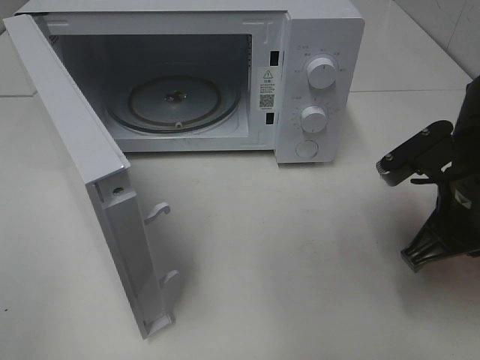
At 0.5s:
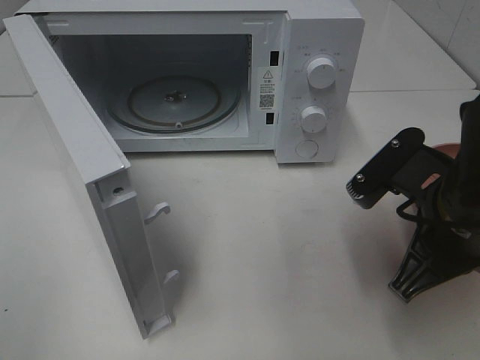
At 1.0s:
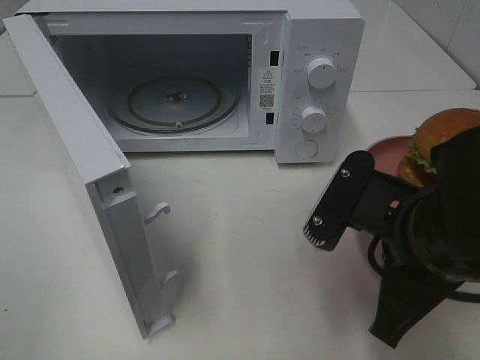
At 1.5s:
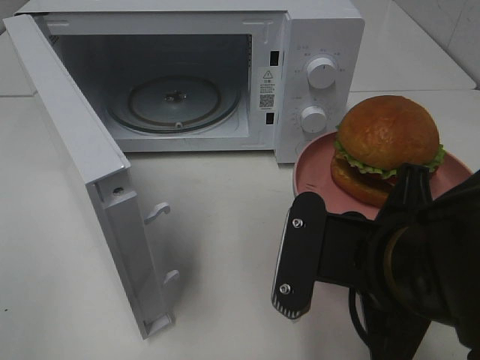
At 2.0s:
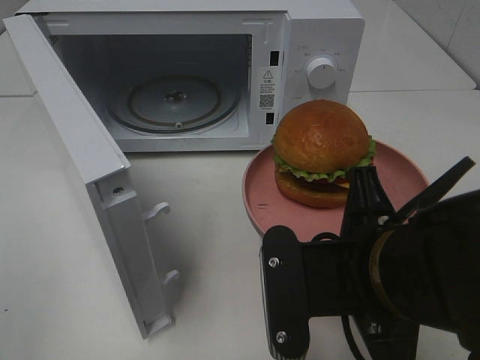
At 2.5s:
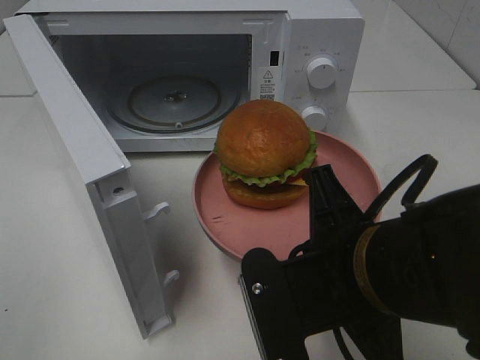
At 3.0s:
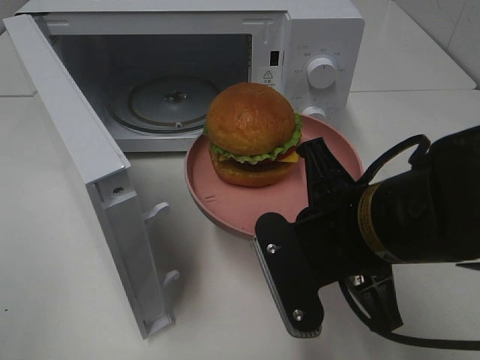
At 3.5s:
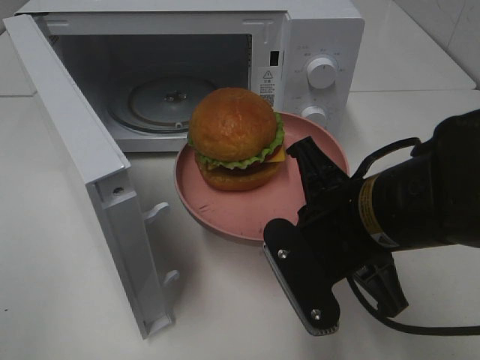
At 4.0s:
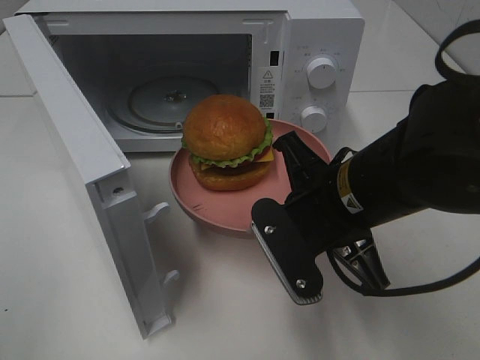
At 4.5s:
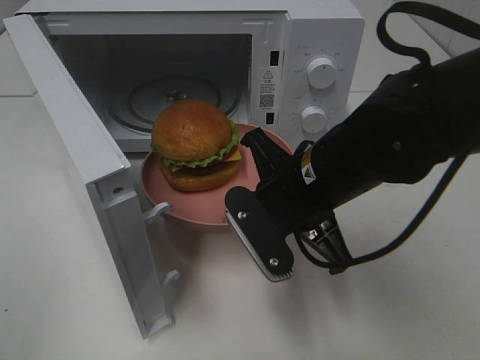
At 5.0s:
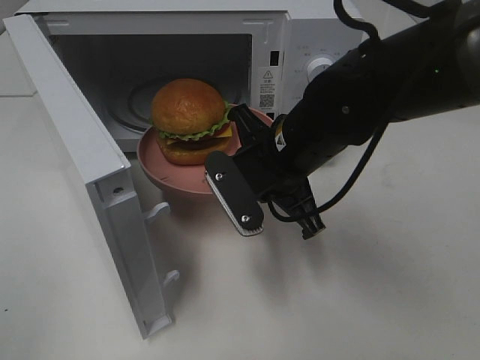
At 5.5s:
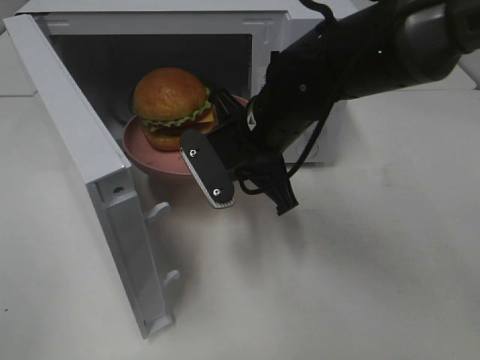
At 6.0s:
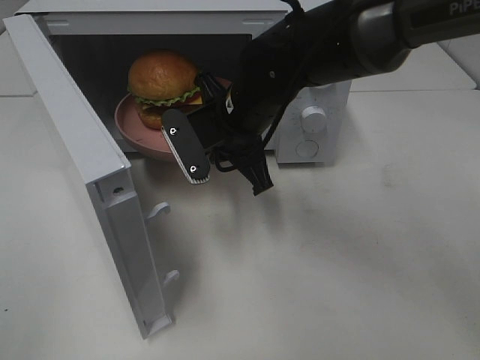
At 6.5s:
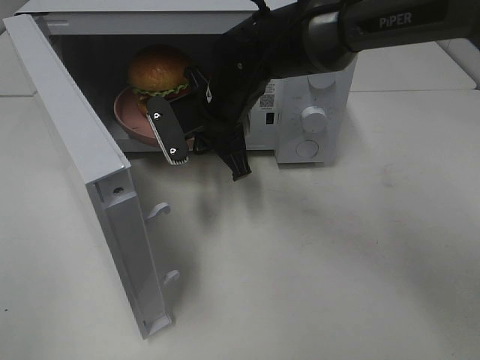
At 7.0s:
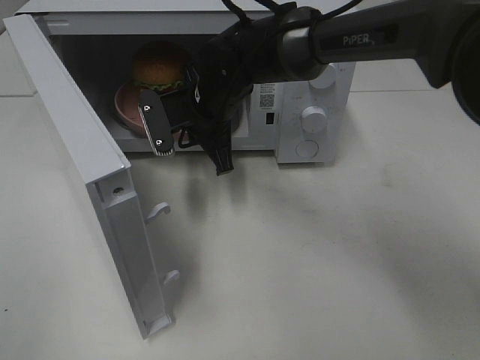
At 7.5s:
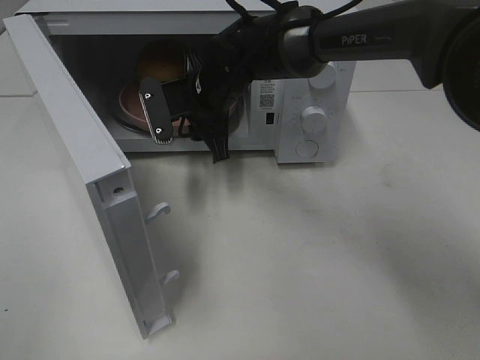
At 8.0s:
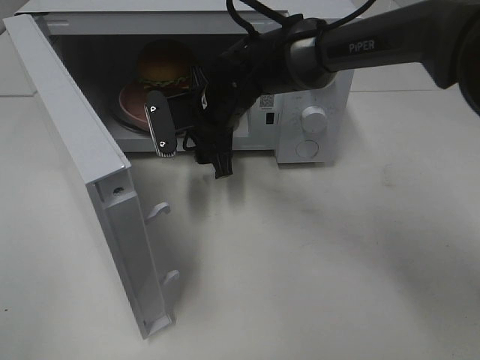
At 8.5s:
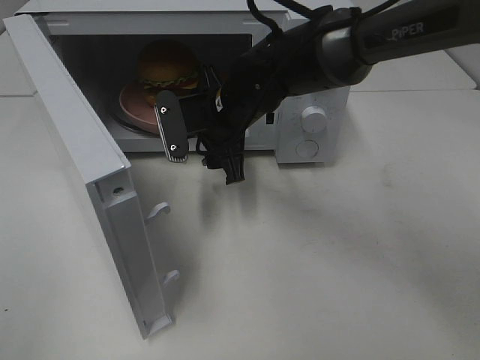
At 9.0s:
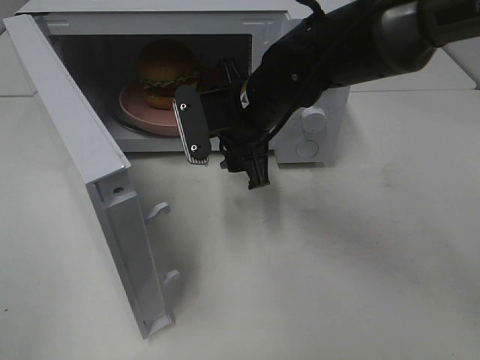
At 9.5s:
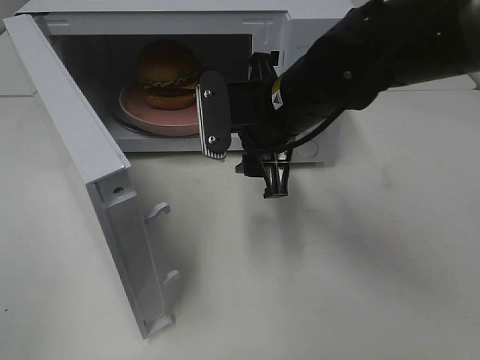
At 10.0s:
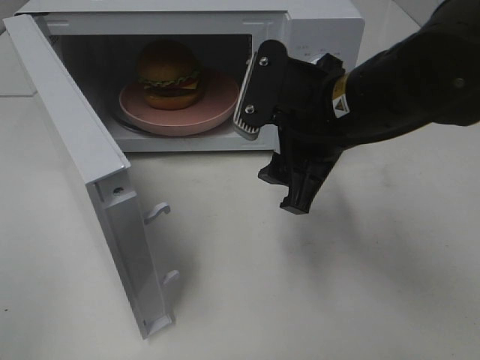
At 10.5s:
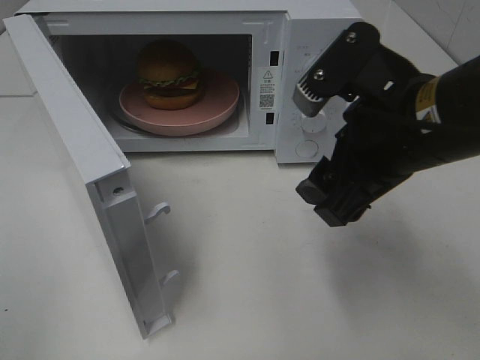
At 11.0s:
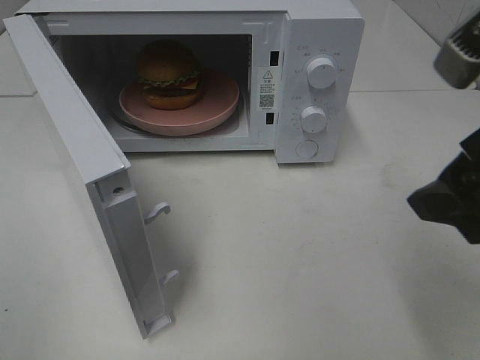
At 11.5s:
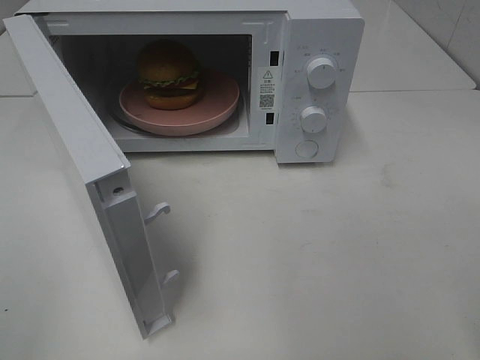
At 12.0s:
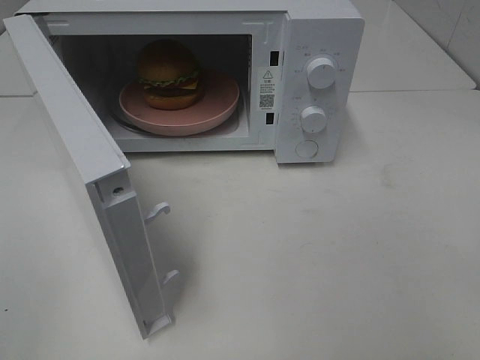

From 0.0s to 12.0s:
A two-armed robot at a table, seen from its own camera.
Task of the whole recording: Heat the burger.
Step, from 0.0s to 7.5s: Right hand: place the plate in the microwave.
From 0.0s to 2.0s: The right gripper goes some 15 cm to the left and backward.
From 2.0s to 4.0s: The right gripper travels forward by about 10 cm.
From 4.0s to 6.0s: The right gripper moves forward and to the left, about 15 cm.
From 6.0s to 8.0s: The right gripper travels forward by some 5 cm, and opens.
From 8.0s to 10.0s: The right gripper moves backward, to the right and upward, some 20 cm.
From 10.0s to 12.0s: The right gripper is displaced backward and to the right by approximately 25 cm.

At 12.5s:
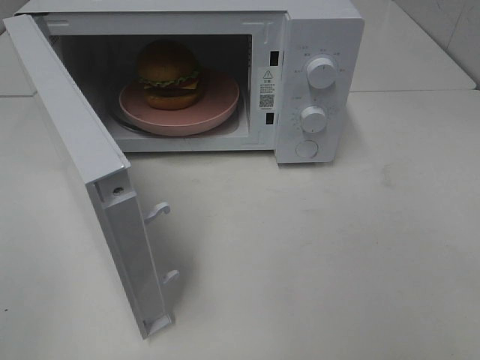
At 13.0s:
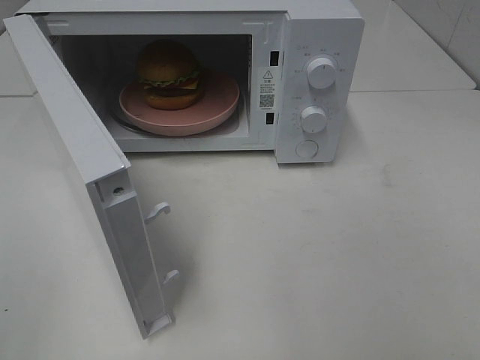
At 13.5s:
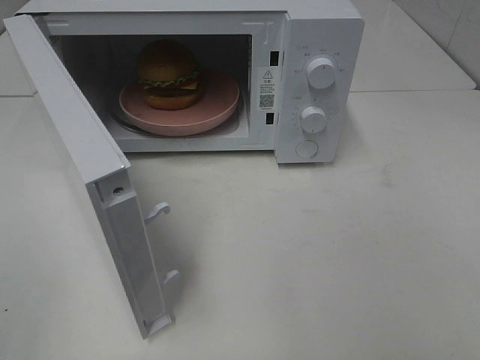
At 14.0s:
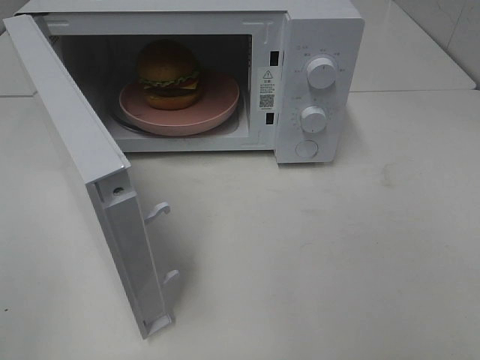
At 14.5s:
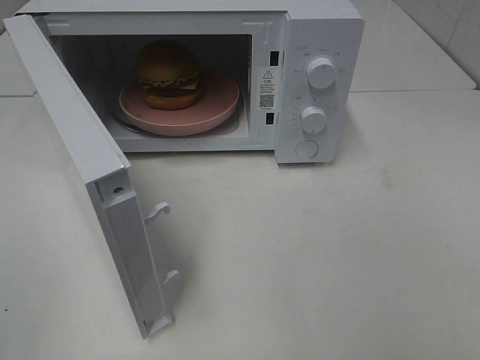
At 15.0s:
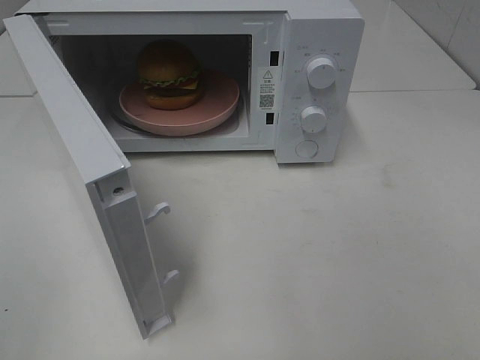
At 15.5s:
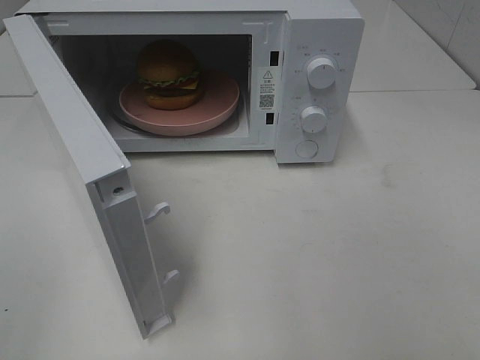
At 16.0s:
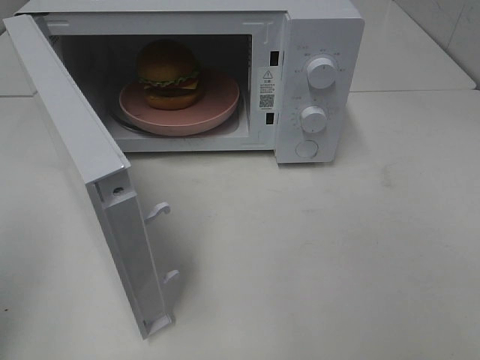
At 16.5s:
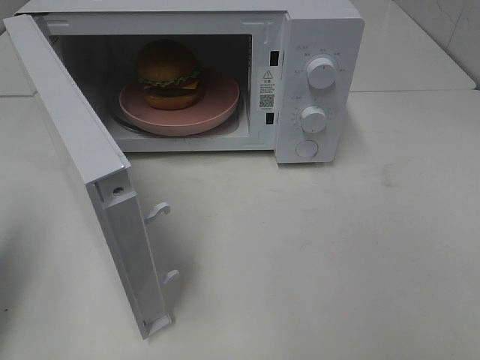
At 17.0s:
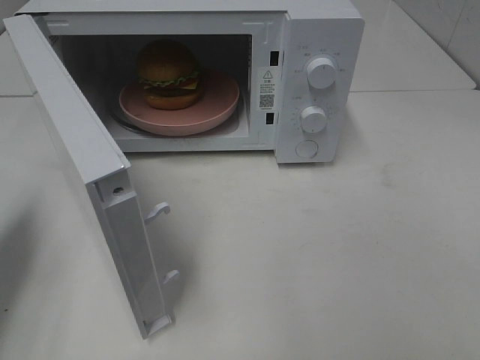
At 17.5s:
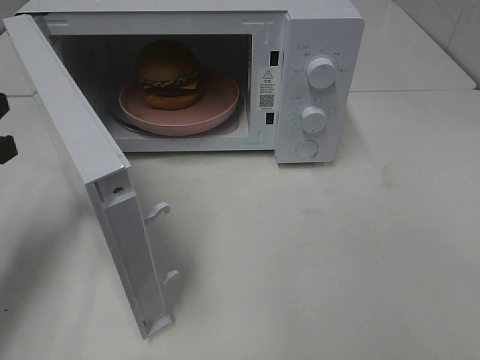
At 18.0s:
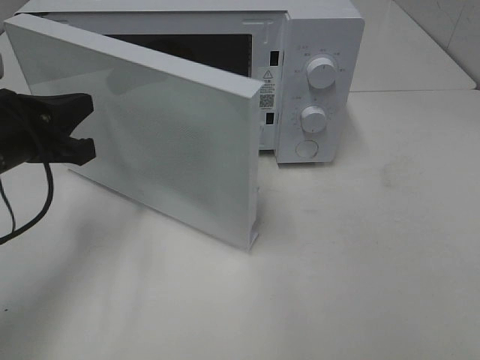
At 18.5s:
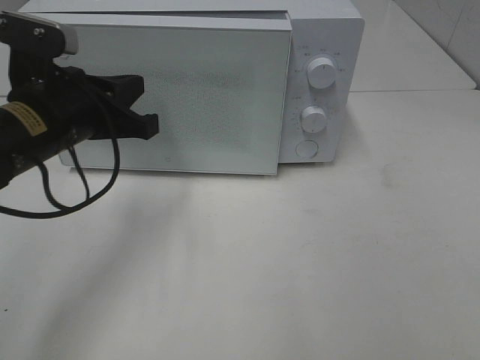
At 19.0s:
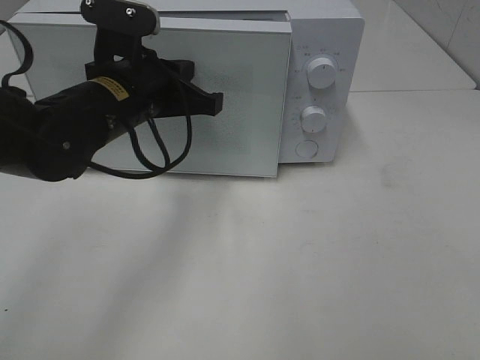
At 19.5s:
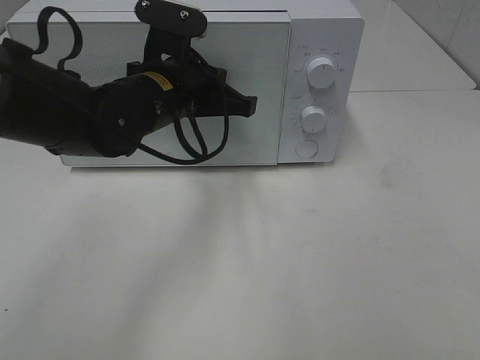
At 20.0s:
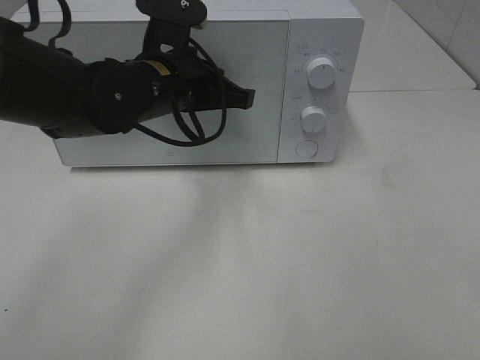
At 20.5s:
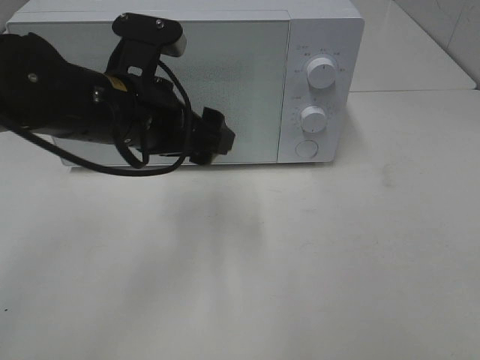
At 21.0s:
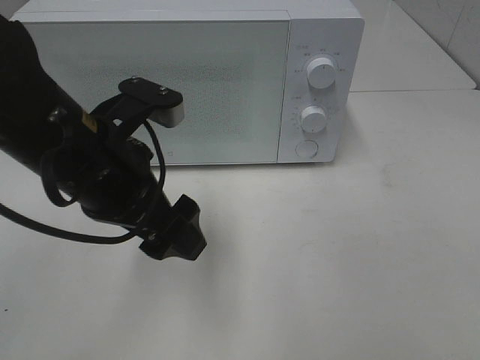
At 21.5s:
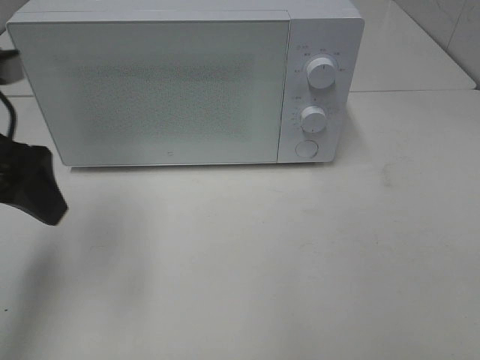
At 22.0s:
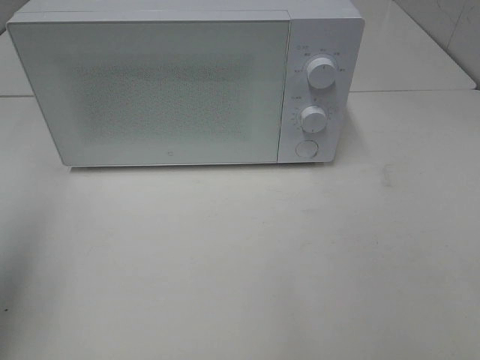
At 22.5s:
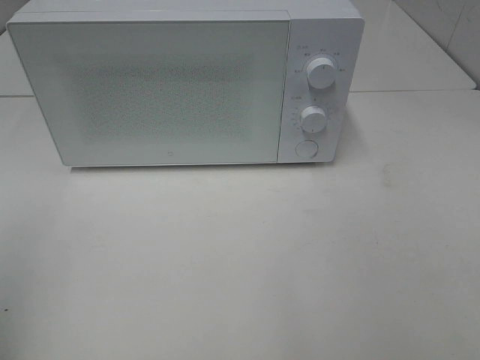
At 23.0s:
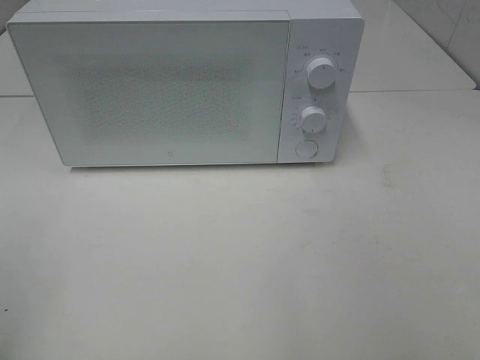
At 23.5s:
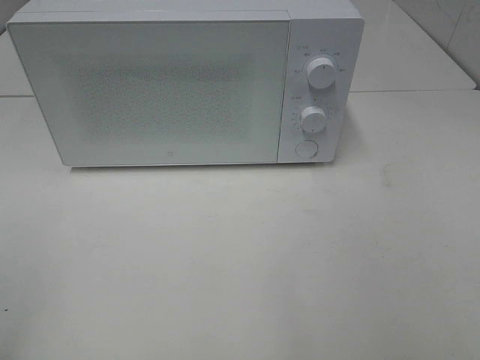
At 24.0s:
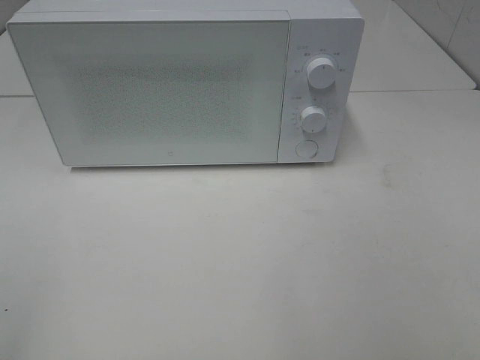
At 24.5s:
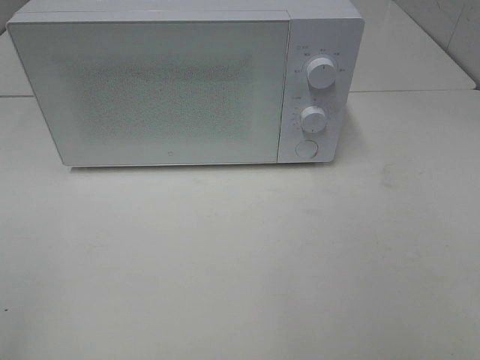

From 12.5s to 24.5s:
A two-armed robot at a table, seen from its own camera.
Task of the whole recording: Heat the burger.
Step, from 12.5s to 20.0s: Left hand: close the microwave door.
From 14.5s to 16.5s: The left gripper heads forward, covering roughly 15 cm, and closes up.
From 16.5s to 18.5s: The left gripper goes some 20 cm to the right, forward and downward.
From 18.5s to 20.5s: The left gripper is displaced to the right by approximately 5 cm, and opens its fingers.
From 20.5s to 22.5s: The left gripper heads to the left, backward and upward, covering roughly 30 cm.

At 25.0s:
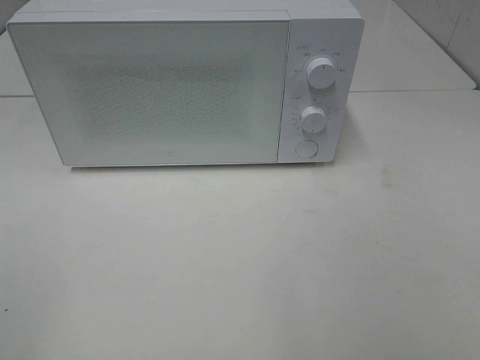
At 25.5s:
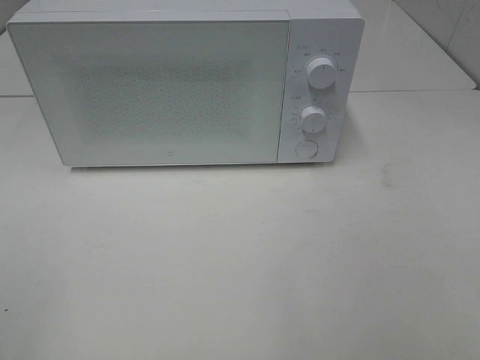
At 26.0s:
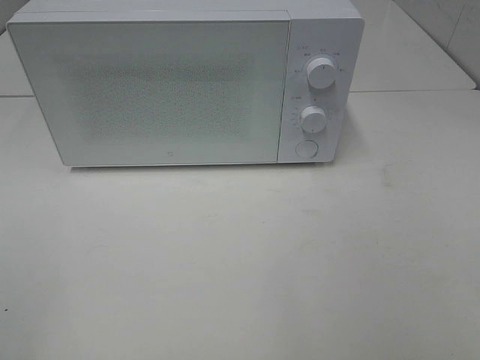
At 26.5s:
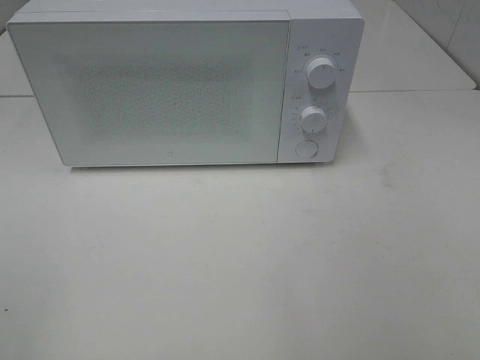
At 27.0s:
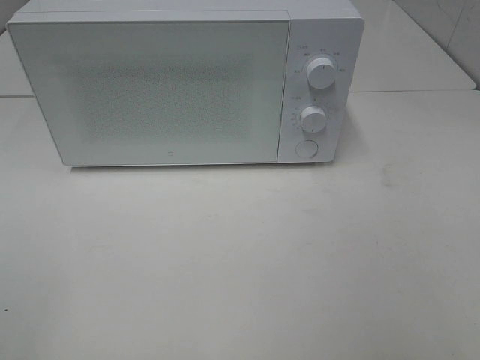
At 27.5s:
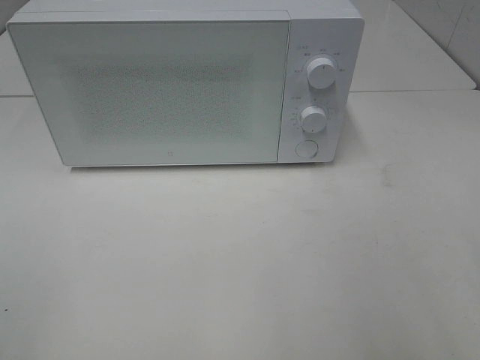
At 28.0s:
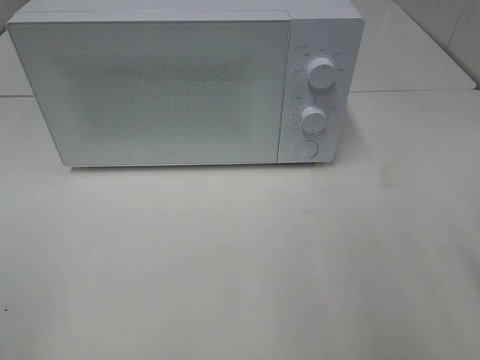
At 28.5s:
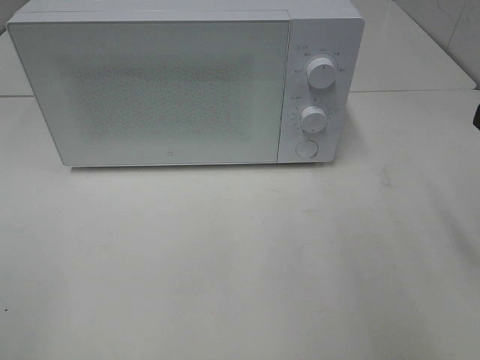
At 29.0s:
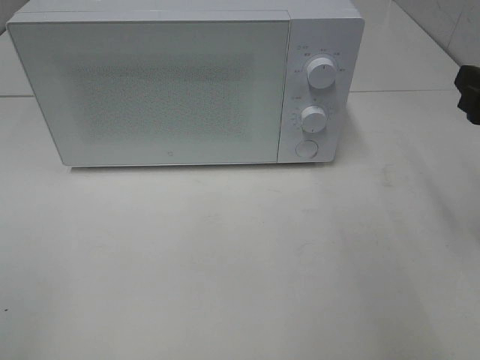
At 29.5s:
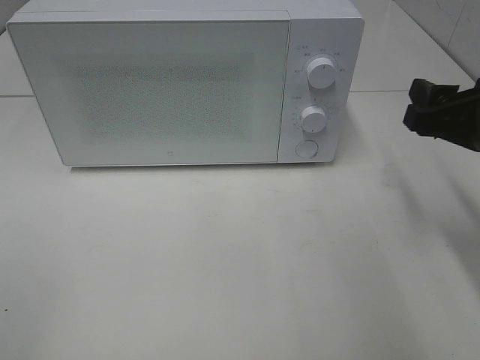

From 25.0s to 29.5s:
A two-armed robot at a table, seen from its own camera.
Task of the whole recording: Heat the burger.
From 27.0s to 29.5s: The right gripper is displaced forward and downward by about 25 cm.
